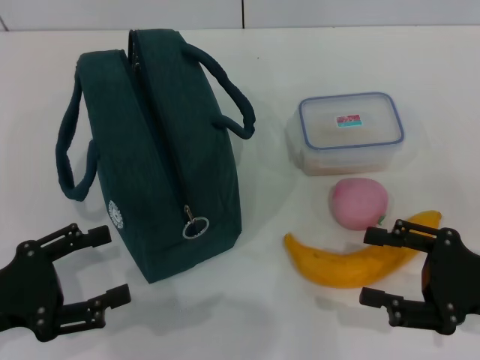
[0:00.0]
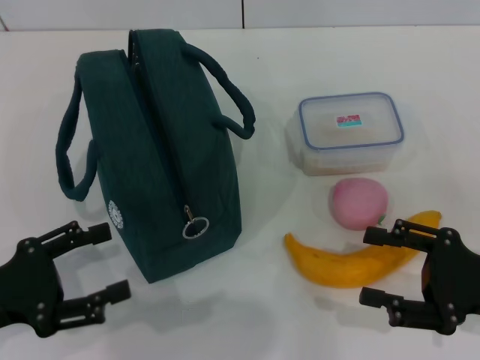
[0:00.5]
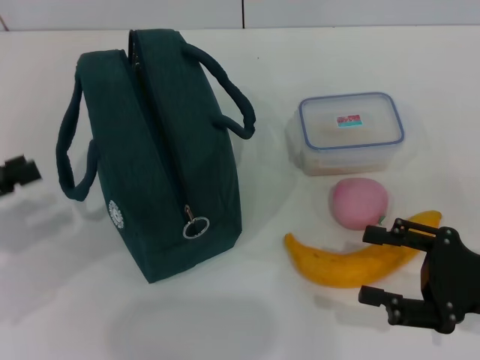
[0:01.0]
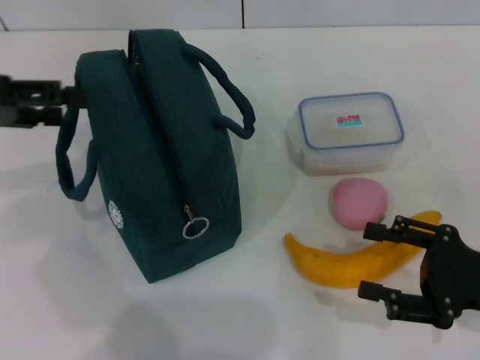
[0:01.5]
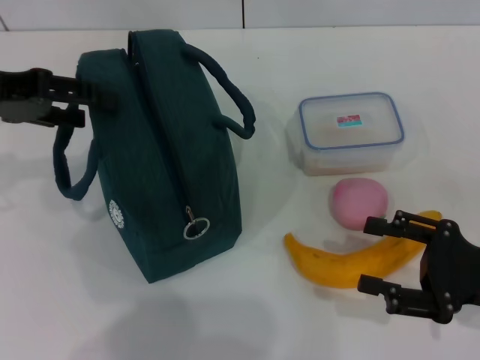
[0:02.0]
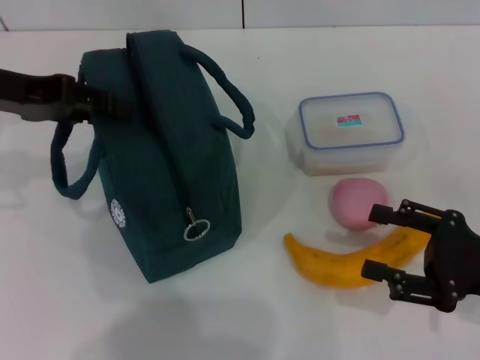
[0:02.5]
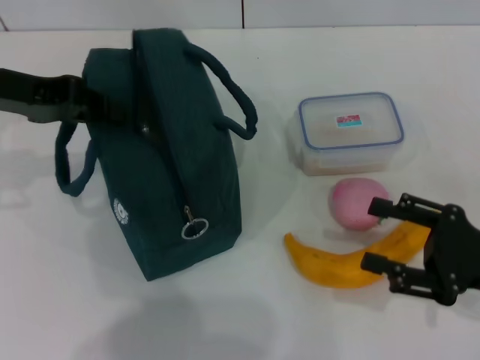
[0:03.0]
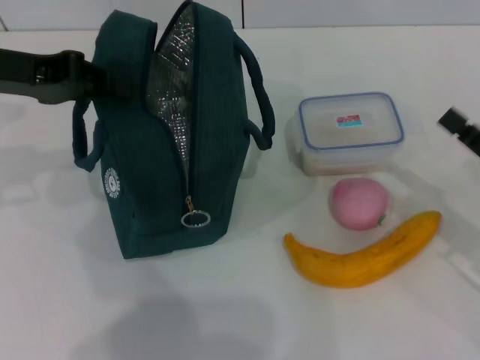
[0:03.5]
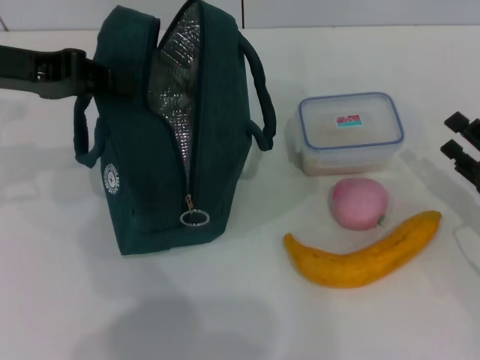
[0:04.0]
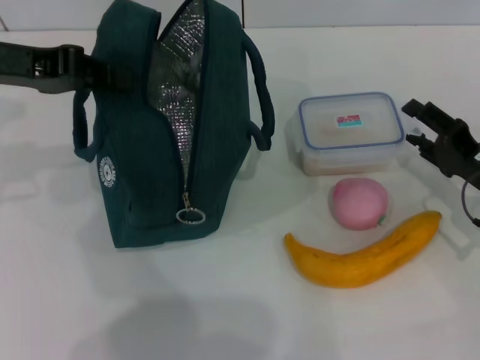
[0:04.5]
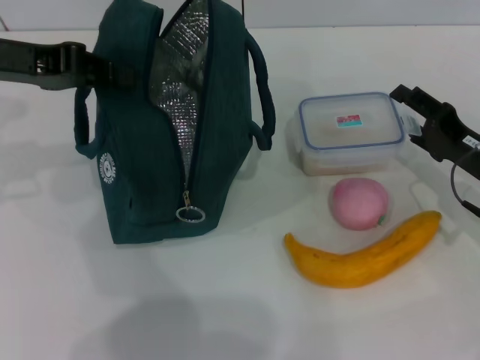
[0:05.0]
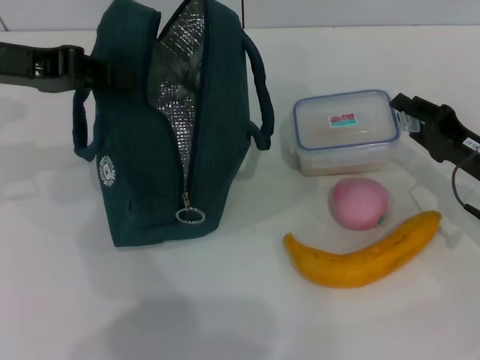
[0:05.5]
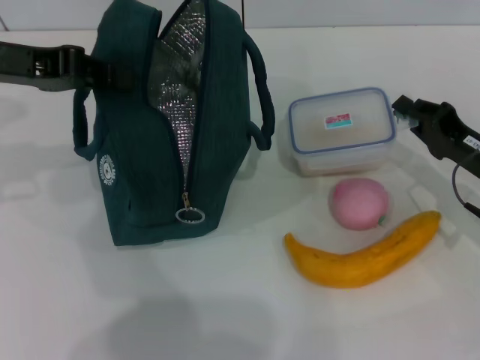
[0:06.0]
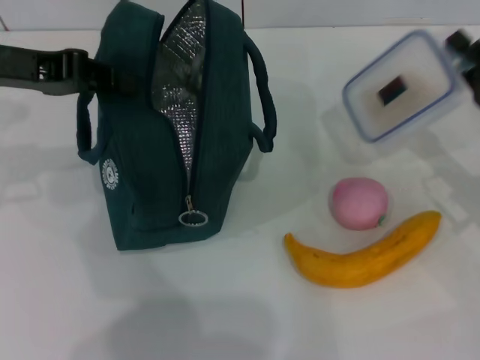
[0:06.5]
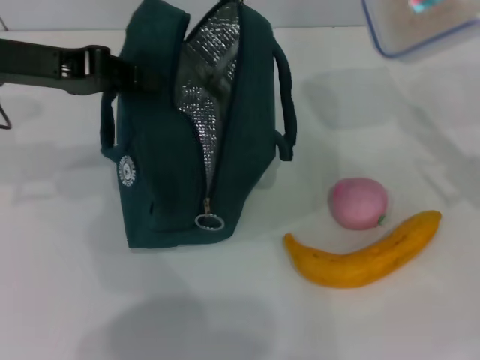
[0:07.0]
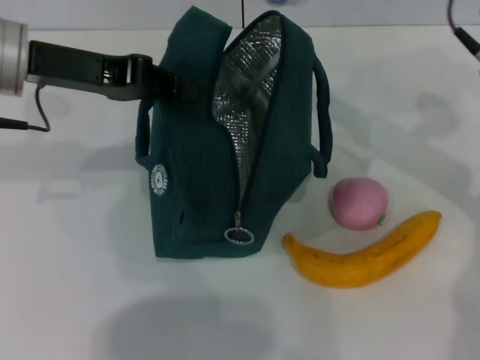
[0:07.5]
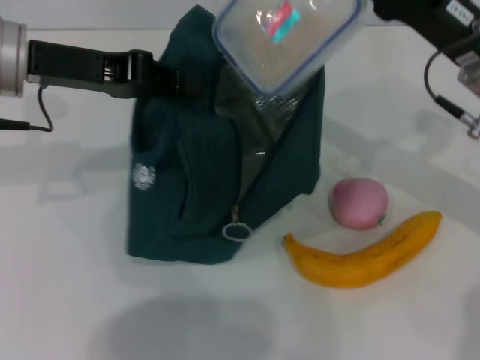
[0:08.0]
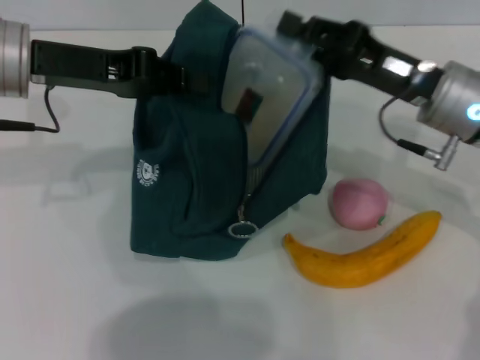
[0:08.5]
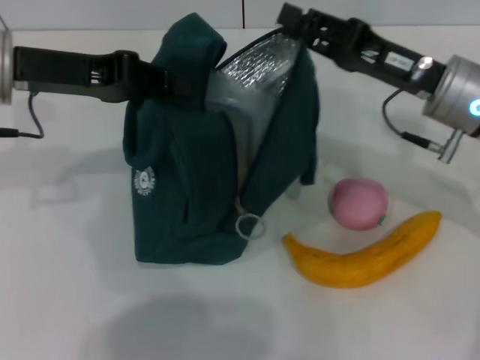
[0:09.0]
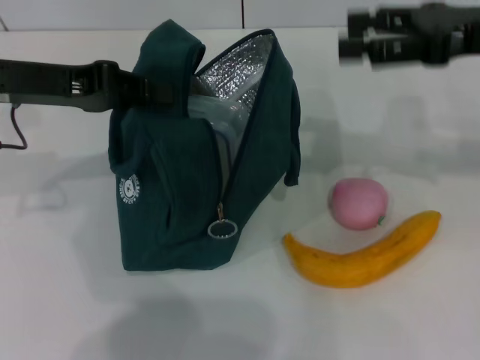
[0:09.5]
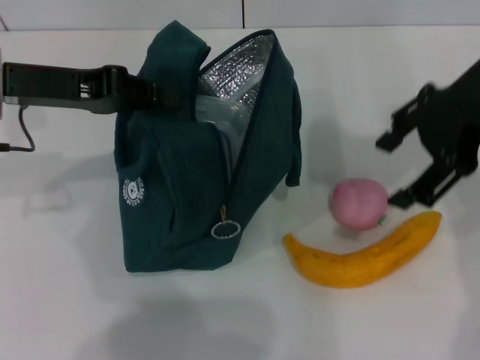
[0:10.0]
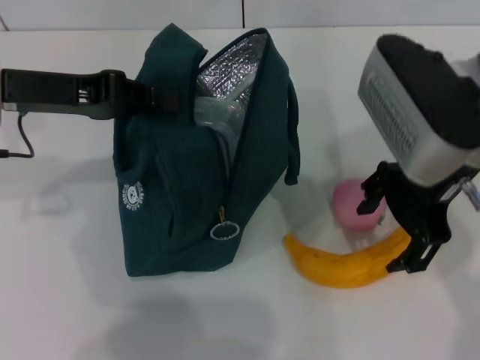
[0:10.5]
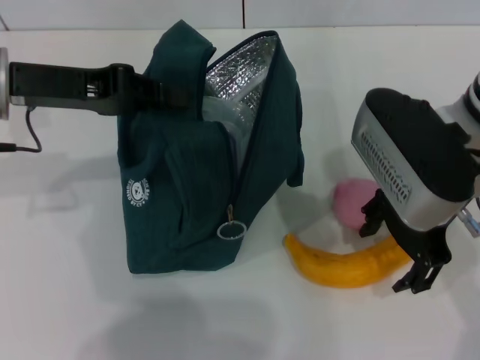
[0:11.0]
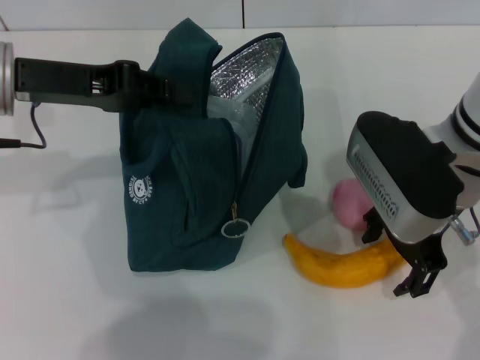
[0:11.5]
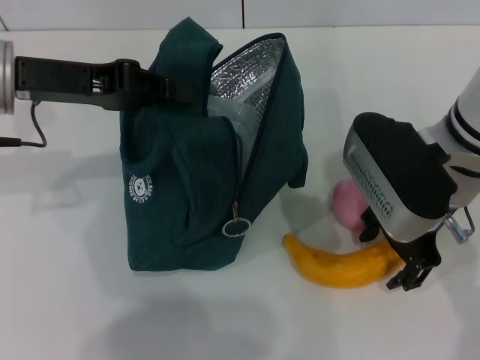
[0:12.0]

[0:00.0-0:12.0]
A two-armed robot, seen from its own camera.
Step, 0:00.0 to 0:03.5: Hold the lunch bag with your left hand.
Step, 0:04.0 to 0:05.5: Pick up the lunch box with your right hand.
Step, 0:06.0 to 0:09.0: Place the lunch box into the lunch bag with your right hand.
0:00.0 to 0:02.0: The left gripper moves forward and upward, some 20 cm.
0:02.0 to 0:04.0: The left gripper closes; the right gripper changes place by about 5 cm.
0:04.0 to 0:06.0: The right gripper shifts roughly 5 cm forward, and closes.
0:06.0 to 0:08.0: The right gripper goes approximately 15 cm upward and to the left; the left gripper changes place by approximately 5 cm.
0:08.0 to 0:10.0: The right gripper shifts some 10 cm upward, and opens.
0:10.0 to 0:12.0: The right gripper heads downward and to the left, covering roughly 15 cm.

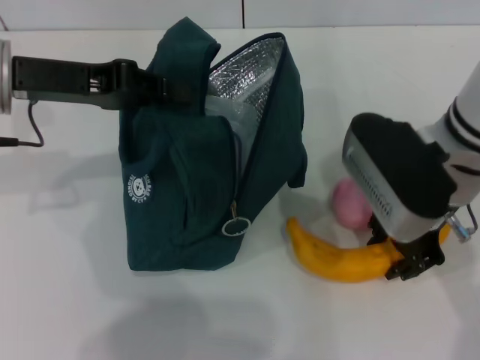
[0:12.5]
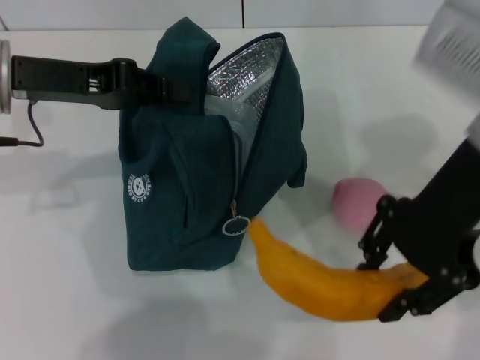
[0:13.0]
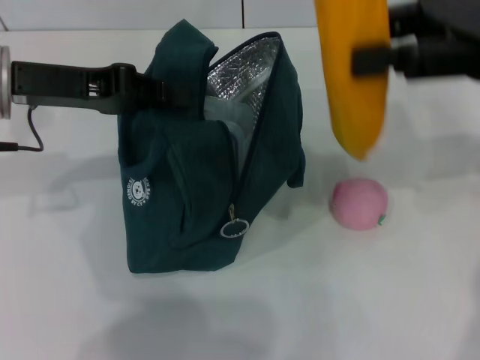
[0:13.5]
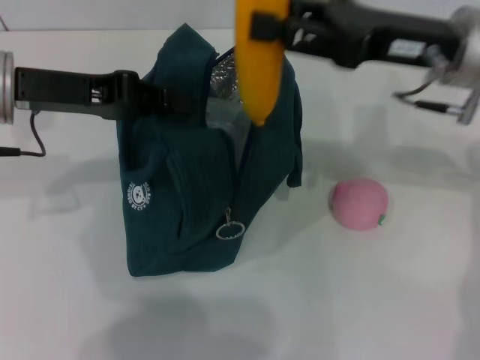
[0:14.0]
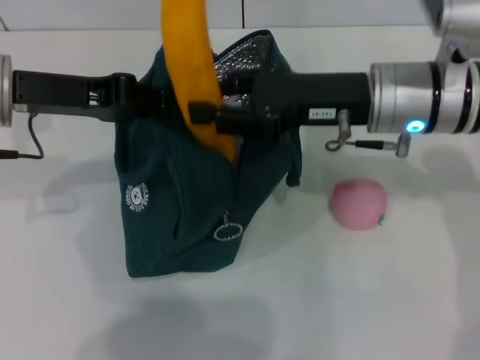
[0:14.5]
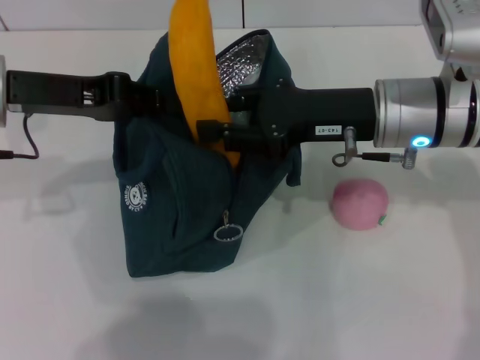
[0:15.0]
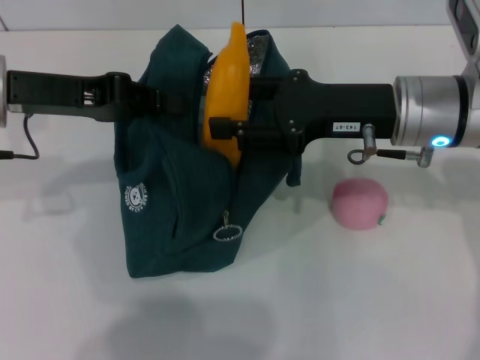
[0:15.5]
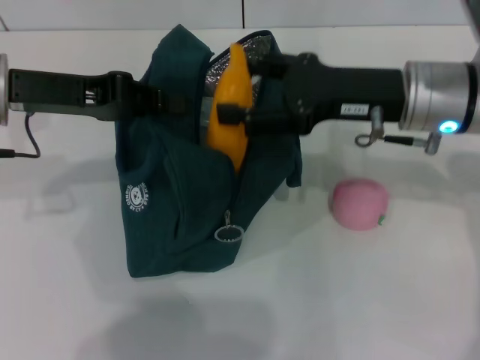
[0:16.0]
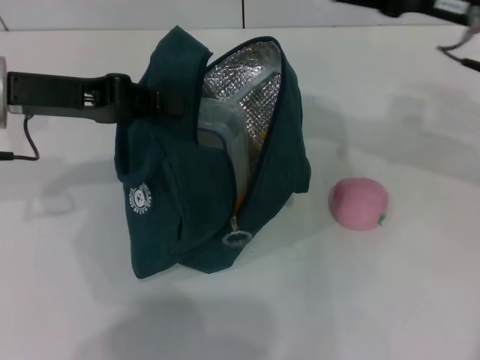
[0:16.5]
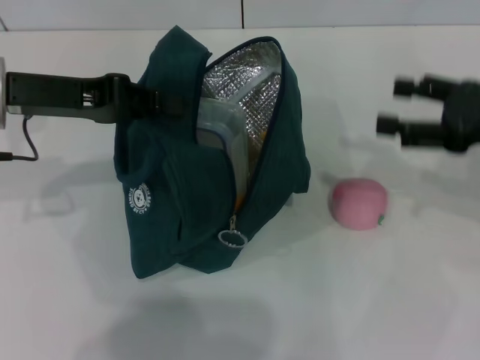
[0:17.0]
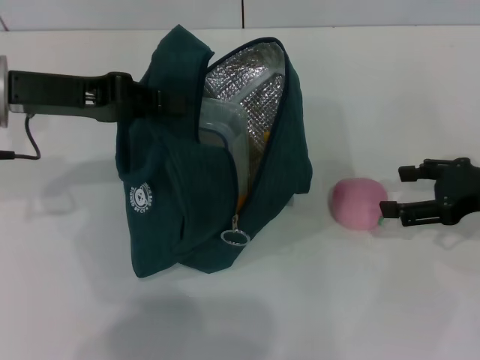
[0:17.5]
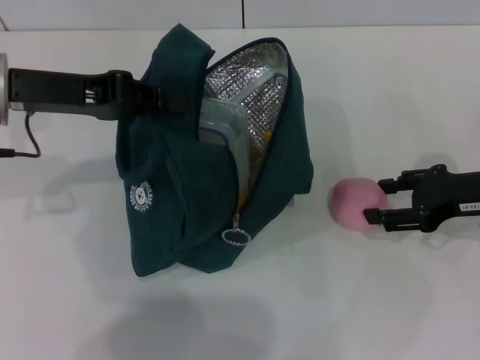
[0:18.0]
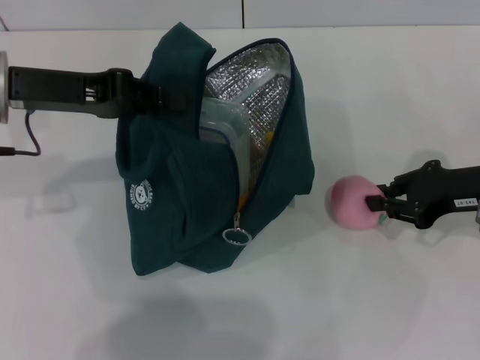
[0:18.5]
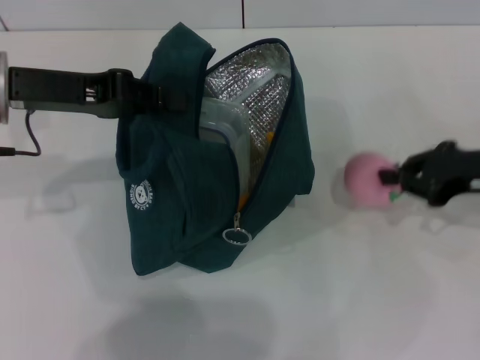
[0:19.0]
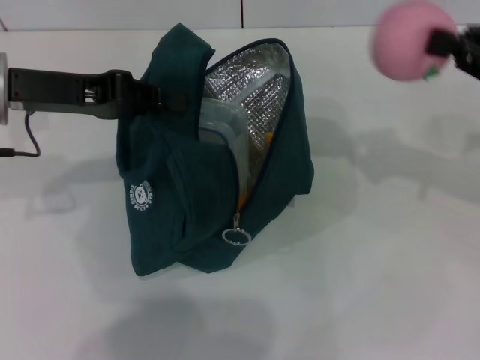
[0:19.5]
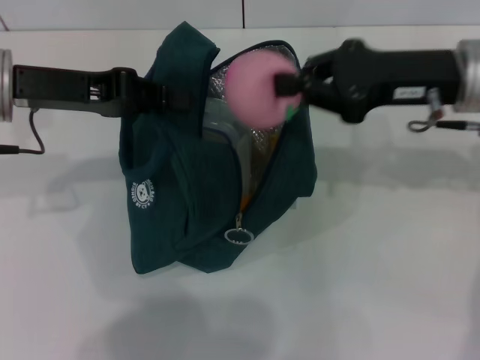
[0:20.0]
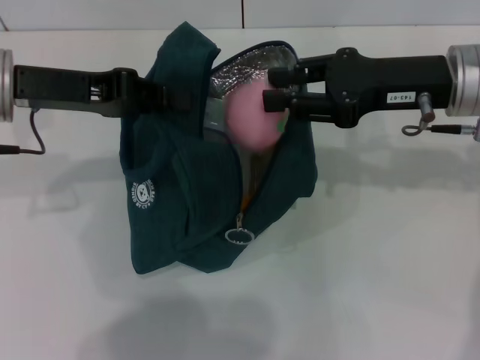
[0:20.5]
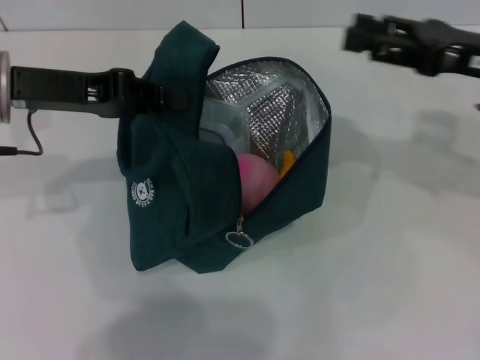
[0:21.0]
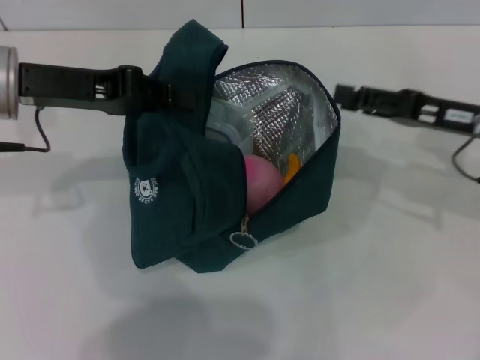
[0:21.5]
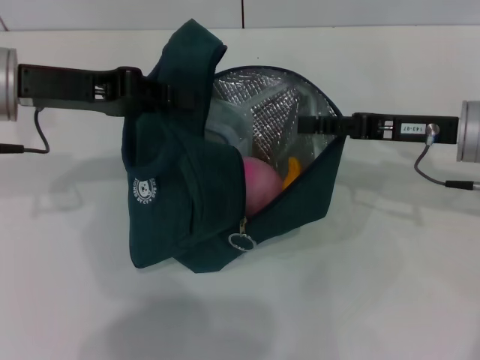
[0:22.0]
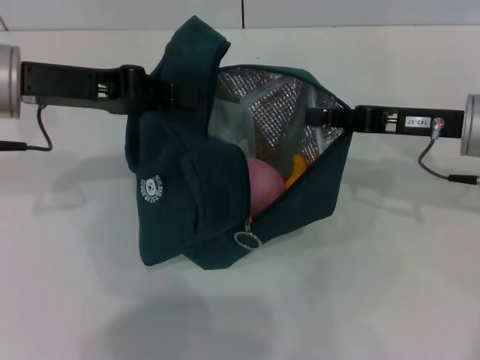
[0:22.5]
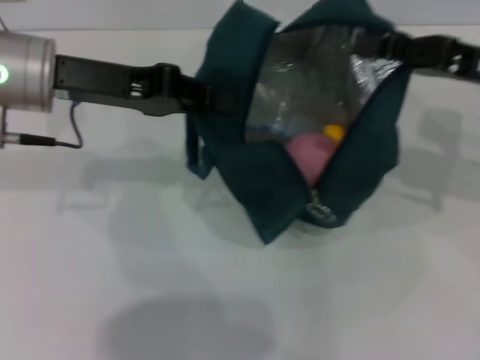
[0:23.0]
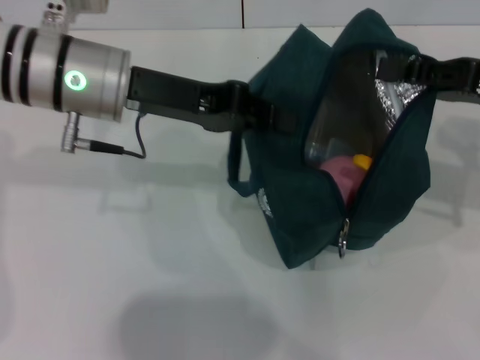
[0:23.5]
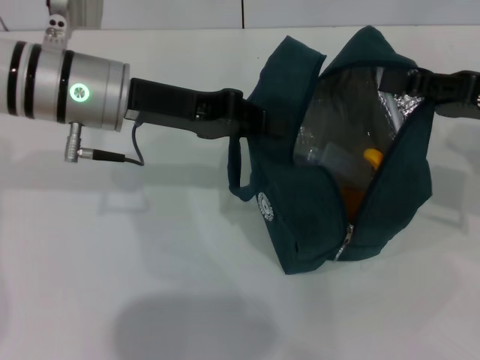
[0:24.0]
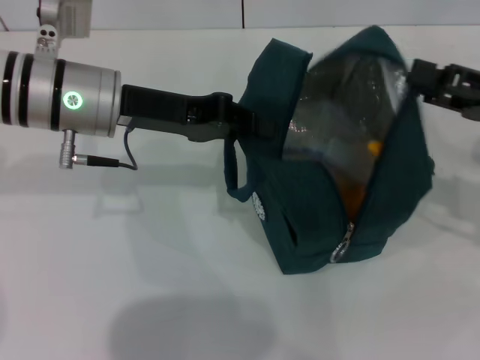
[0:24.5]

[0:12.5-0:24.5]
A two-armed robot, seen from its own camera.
Step, 0:12.5 to 0:16.0: Put the banana into the lunch bag with your right hand.
Step, 0:16.5 to 0:18.5: Grab the peach with your right hand.
Step, 0:21.0 to 0:24.5: Hold the lunch bag with your right hand.
0:12.5 to 0:14.5: The right gripper travels to the right and back again, some 10 cm each way.
0:14.5 to 0:16.5: The right gripper moves to the right, about 10 cm, and opens up.
0:16.5 to 0:18.5: The right gripper heads downward and backward, covering roughly 10 cm, and closes.
0:18.5 to 0:20.5: The right gripper shifts about 10 cm upward and to the left.
0:20.5 to 0:22.5: The right gripper travels downward by about 5 cm.
0:22.5 to 0:24.5: Both grippers travel together to the right, approximately 5 cm.

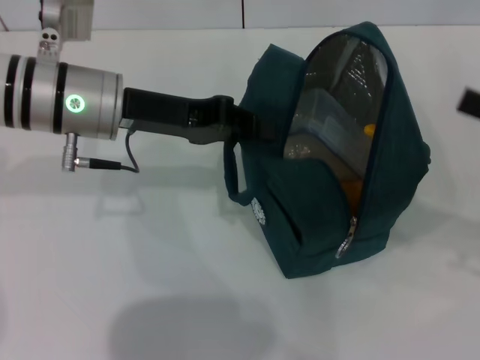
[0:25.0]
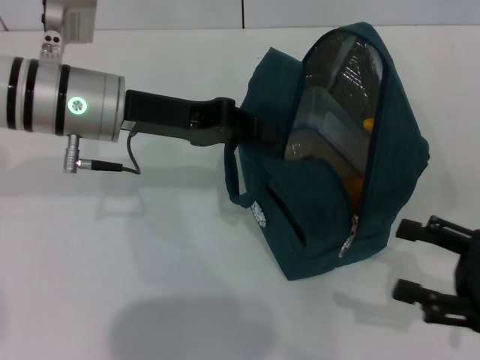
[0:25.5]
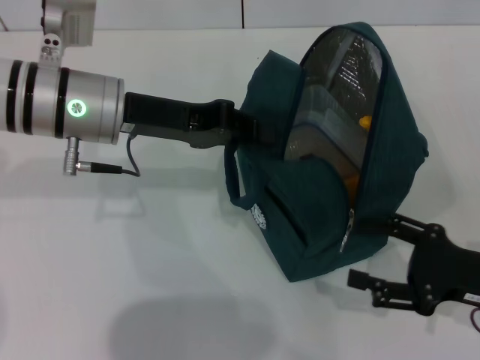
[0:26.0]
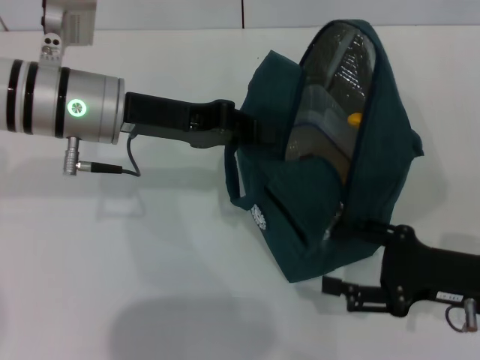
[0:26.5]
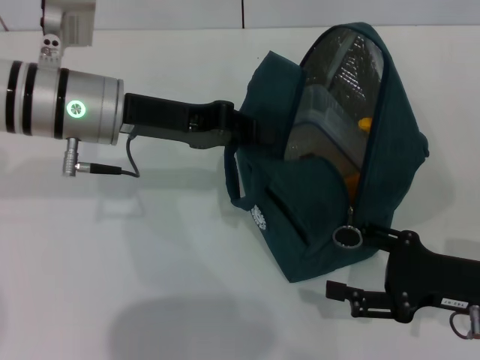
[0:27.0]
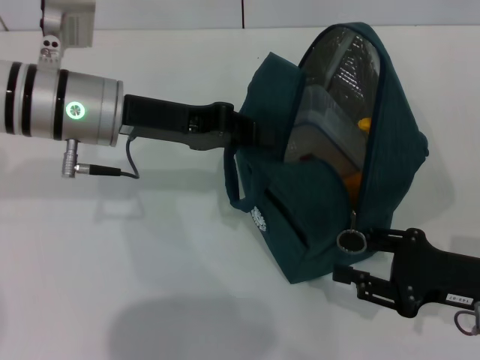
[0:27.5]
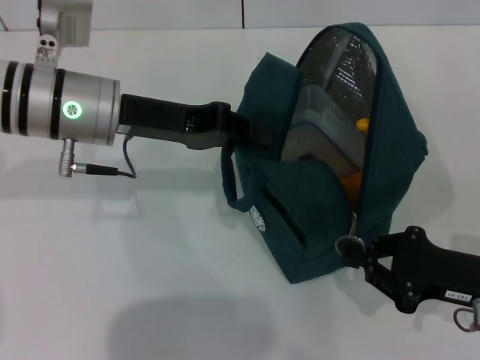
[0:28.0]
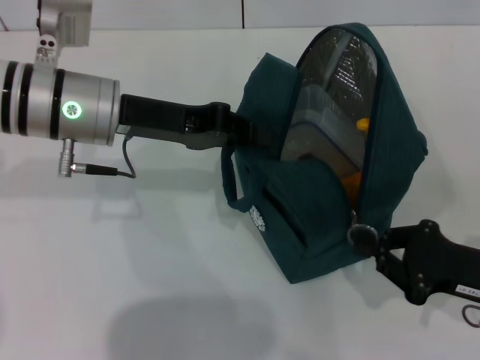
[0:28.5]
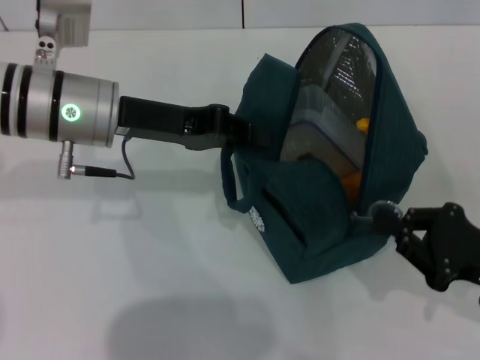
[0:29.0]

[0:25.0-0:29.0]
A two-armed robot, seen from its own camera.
0:25.0 to 0:27.0: The right gripper heads downward and to the left, covering about 15 cm.
0:27.0 to 0:29.0: The right gripper closes up.
